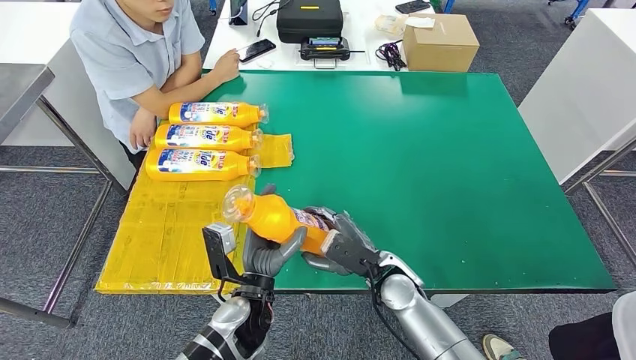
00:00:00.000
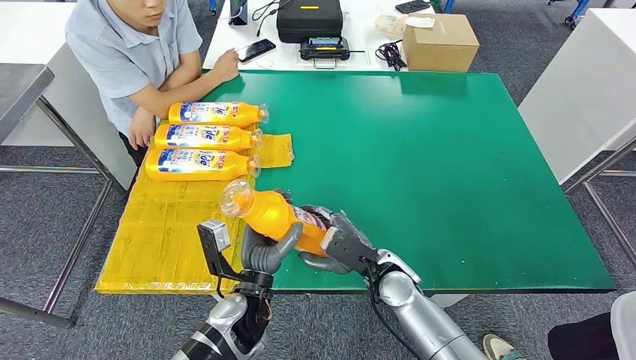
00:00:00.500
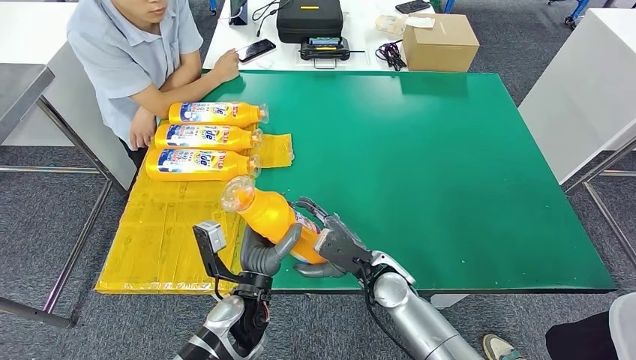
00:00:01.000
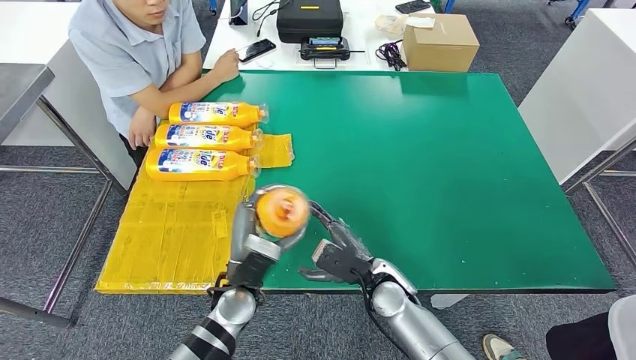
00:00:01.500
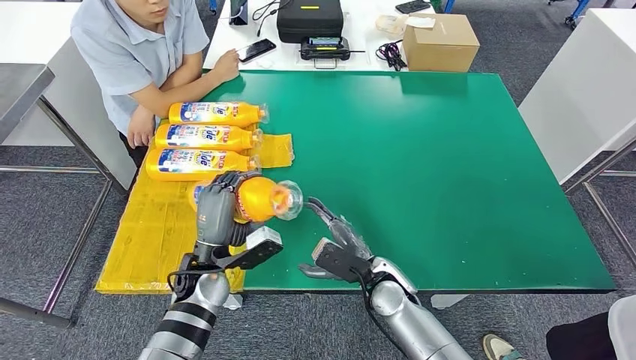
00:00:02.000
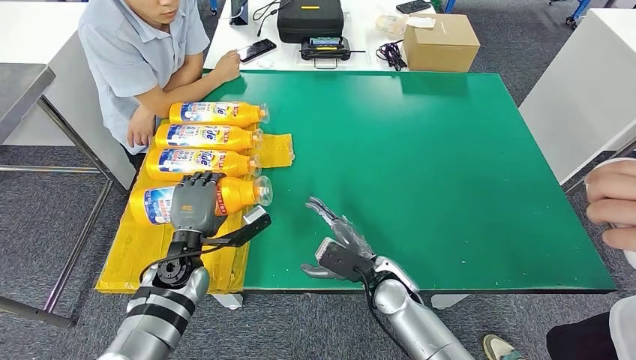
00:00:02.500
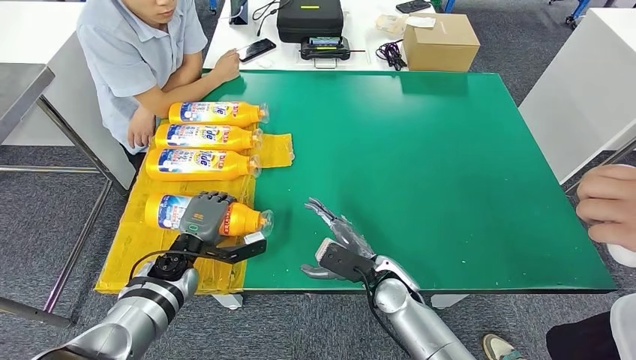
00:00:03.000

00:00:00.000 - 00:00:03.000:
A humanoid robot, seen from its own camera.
Step, 00:00:00.000 - 00:00:03.000: Flip the bottle to face forward.
00:00:01.500 - 00:00:03.000: The left hand moves to the left and forward, some 15 cm.
